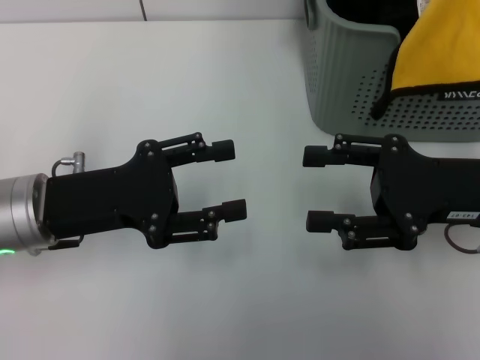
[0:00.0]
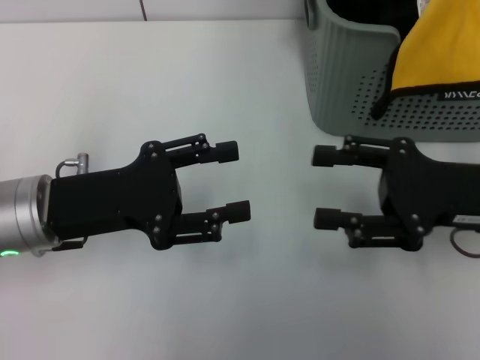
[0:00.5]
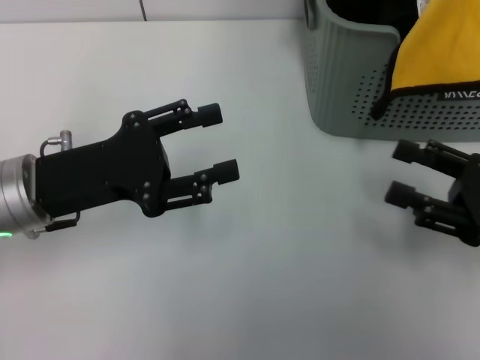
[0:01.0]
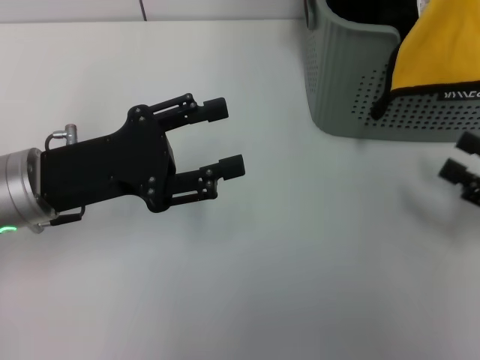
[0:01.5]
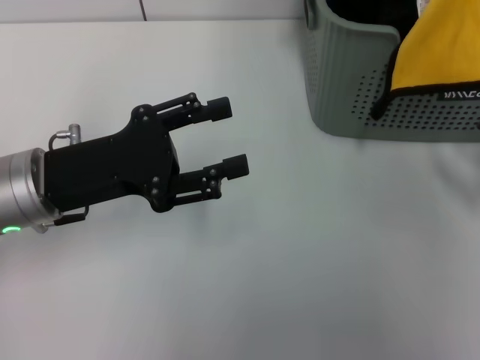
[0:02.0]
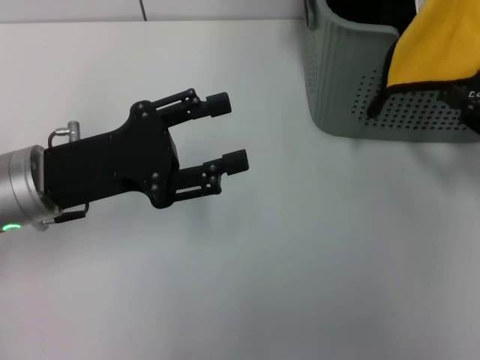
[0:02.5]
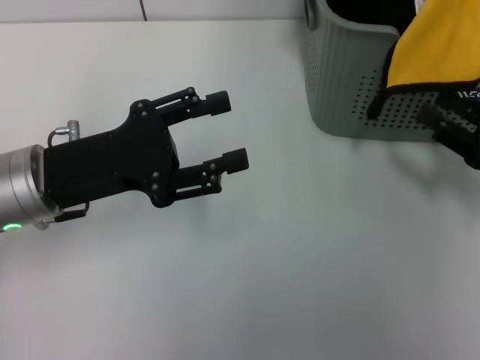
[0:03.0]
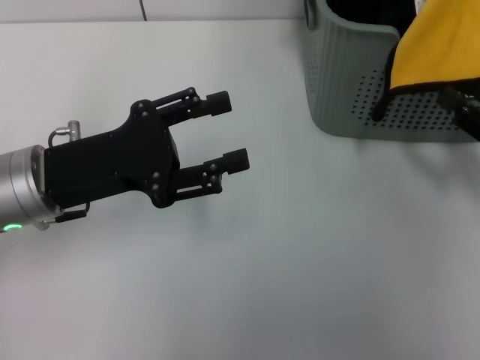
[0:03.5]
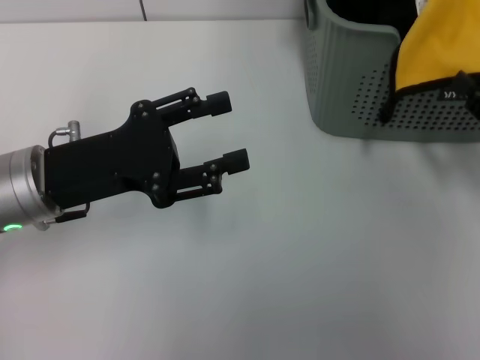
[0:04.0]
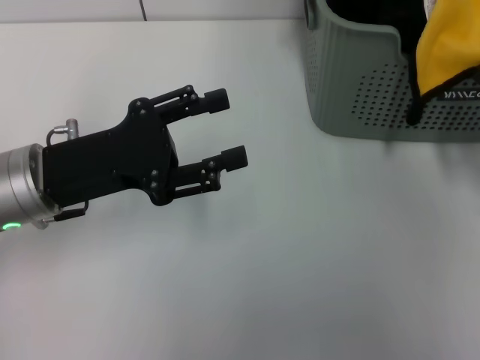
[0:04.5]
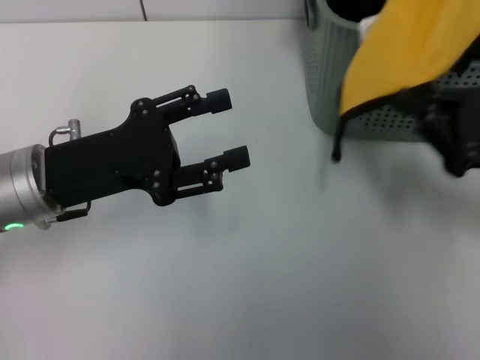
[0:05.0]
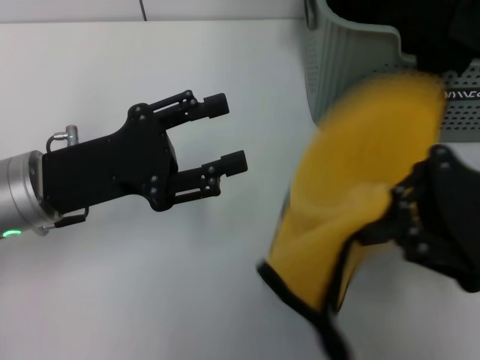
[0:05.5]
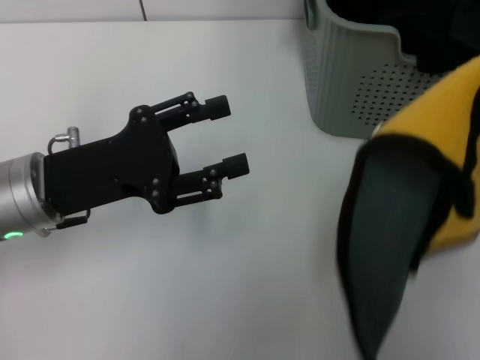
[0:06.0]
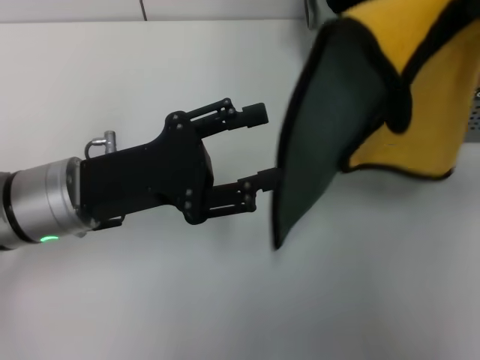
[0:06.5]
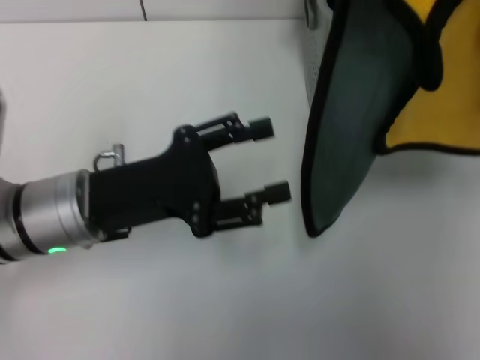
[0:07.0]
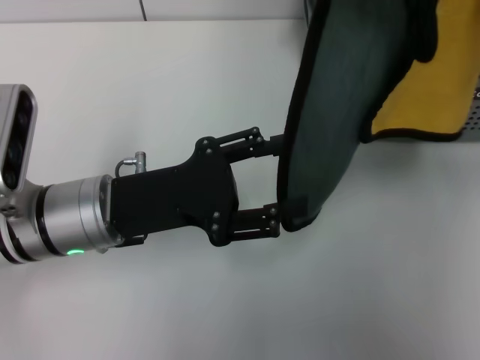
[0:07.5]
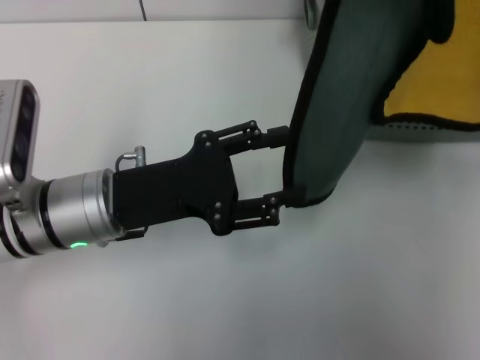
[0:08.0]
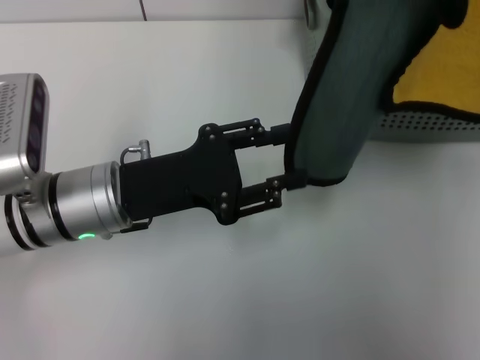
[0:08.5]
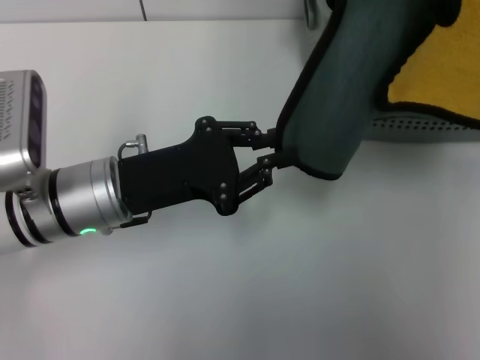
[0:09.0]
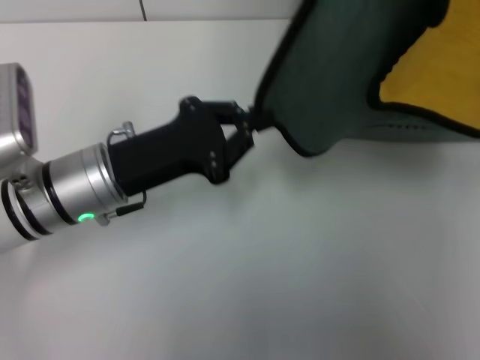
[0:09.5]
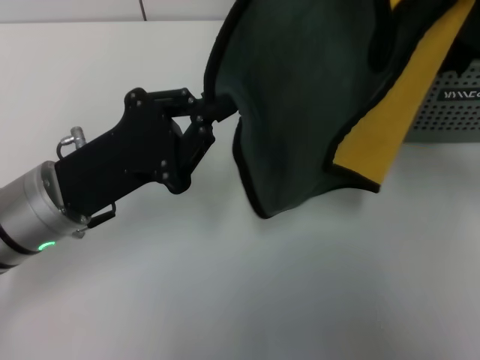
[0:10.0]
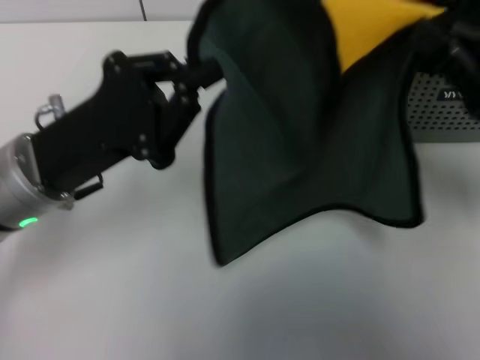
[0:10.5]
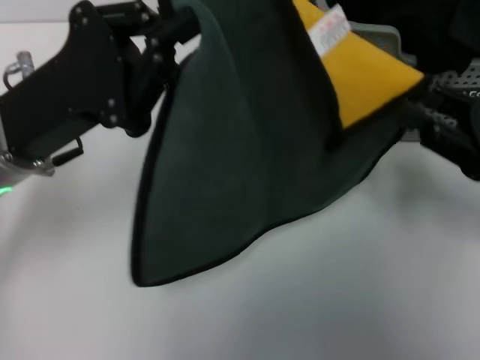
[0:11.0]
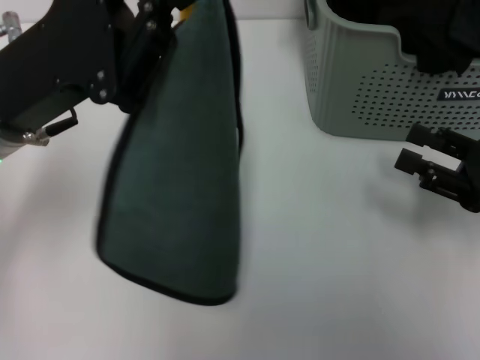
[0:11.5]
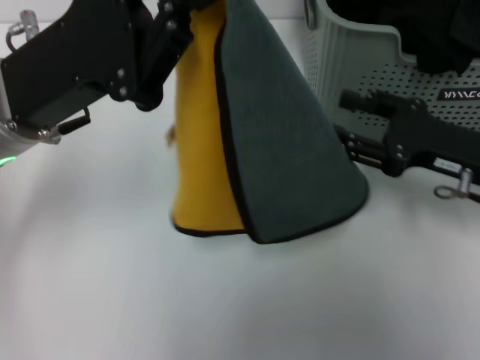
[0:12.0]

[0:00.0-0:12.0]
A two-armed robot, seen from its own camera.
Task of the whole recording: pick up the towel from the storage box and lay it flat on the table.
Step, 0:00.0 to 0:04.0: Pick up a towel with the right gripper.
Step, 0:04.5 to 0:09.0: Spread the towel flat with the right gripper.
0:00.0 to 0:02.0: The right gripper moves to the right and downward, approximately 15 cm.
0:02.0 to 0:04.0: There are only small adjustments of the grippers.
0:04.0 to 0:06.0: The right gripper is displaced upward by roughly 10 cm, and closes up.
0:06.0 to 0:08.0: The right gripper moves upward, some 5 cm.
0:08.0 to 0:10.0: The right gripper travels downward by approximately 5 cm, while the left gripper closes its fingers.
0:10.0 to 0:12.0: The right gripper heads downward, covering some 5 cm, and opens up. The left gripper is displaced upward by roughly 10 cm.

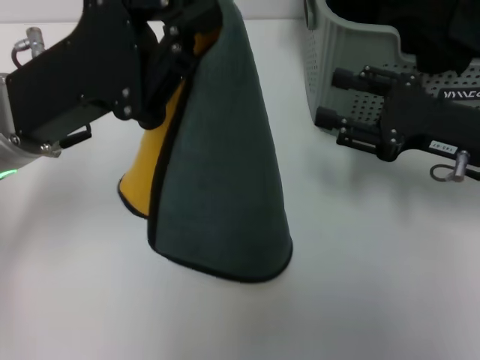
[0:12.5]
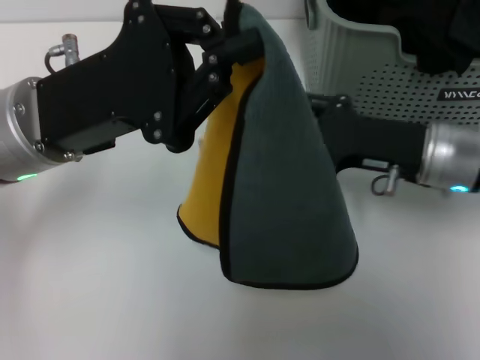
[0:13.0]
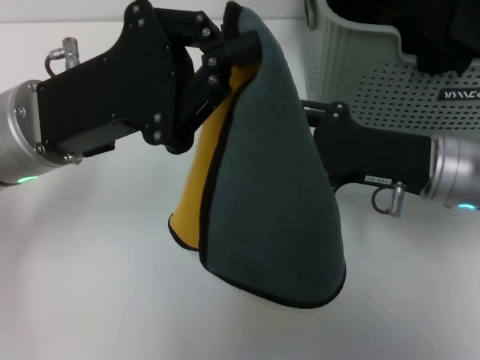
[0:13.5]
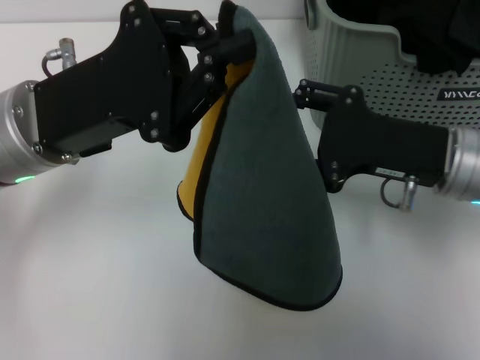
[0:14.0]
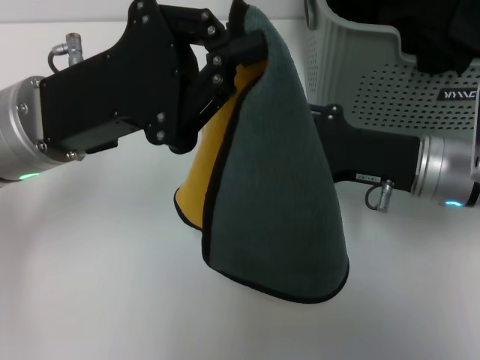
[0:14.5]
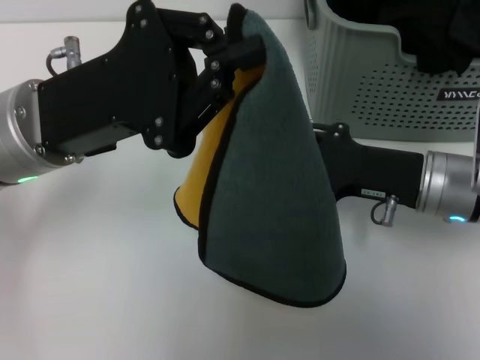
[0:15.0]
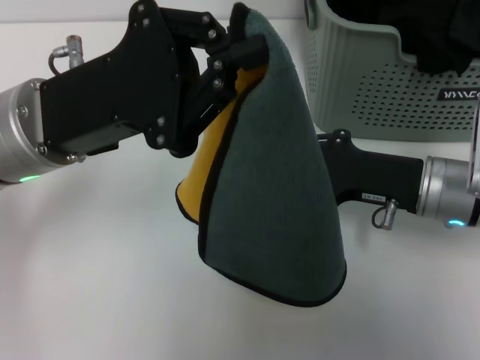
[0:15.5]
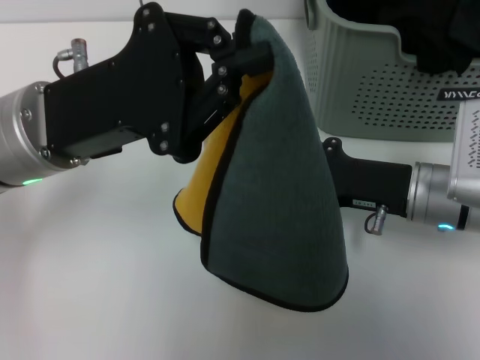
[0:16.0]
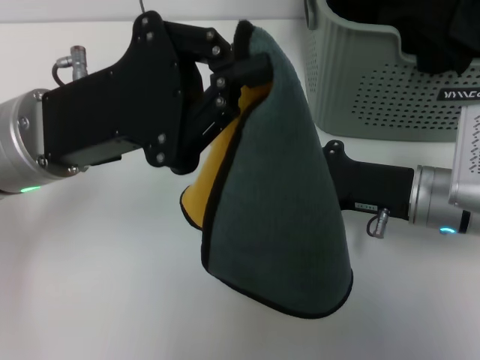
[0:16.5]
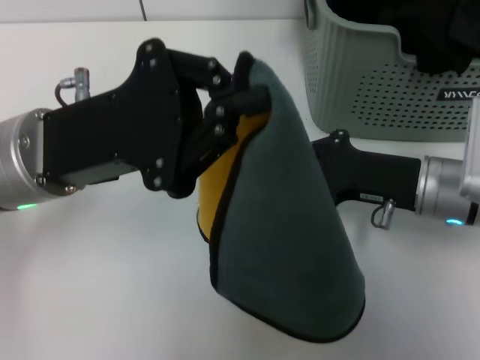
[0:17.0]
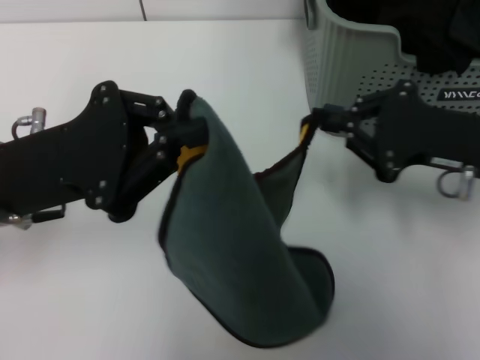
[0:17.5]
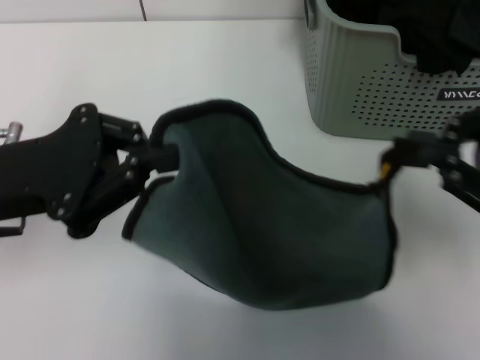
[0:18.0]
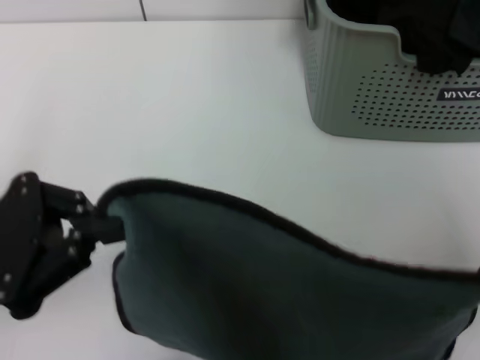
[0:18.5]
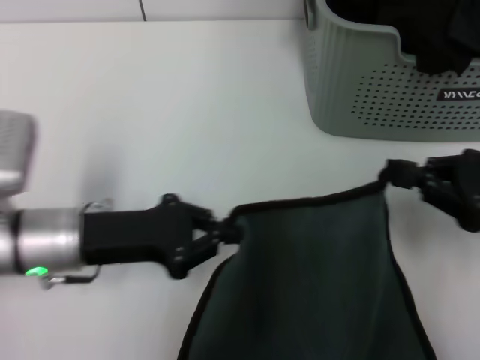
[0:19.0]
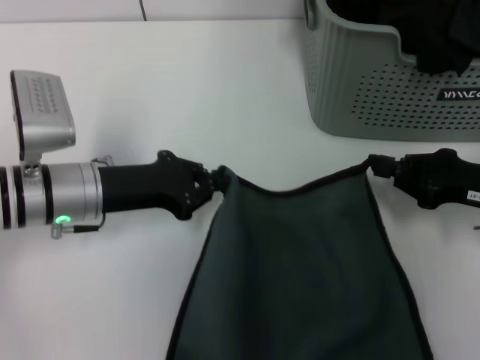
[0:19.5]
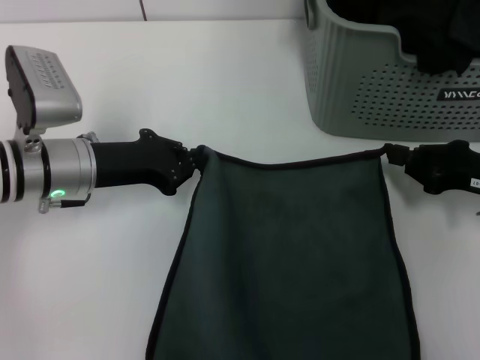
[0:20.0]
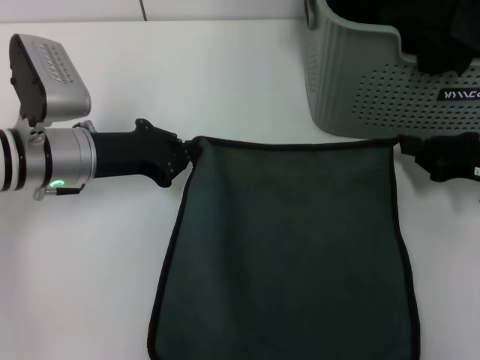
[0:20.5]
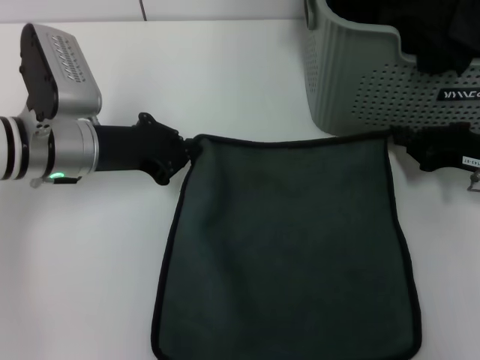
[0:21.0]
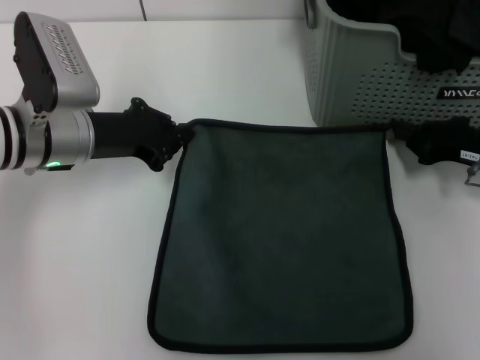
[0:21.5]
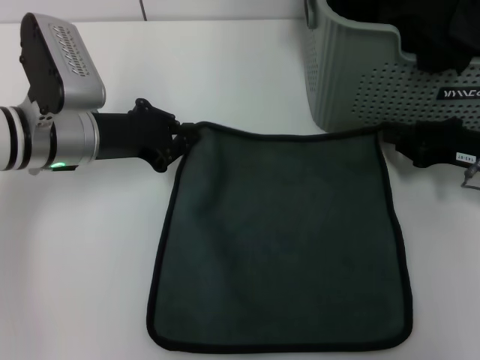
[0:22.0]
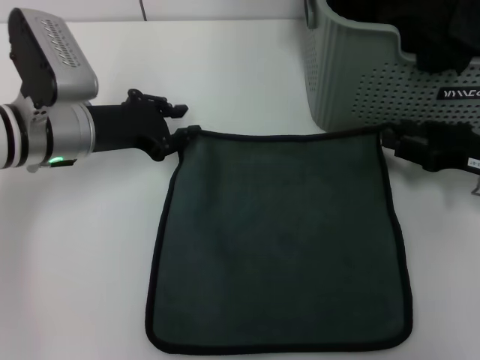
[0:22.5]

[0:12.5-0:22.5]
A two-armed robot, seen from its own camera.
Task of the whole recording: pick up the towel from the storage box and lay it flat on the table.
Step, 0:12.5 to 0:22.0: Spread the towel flat with the left gripper.
0:12.5 to 0:14.5: The right gripper heads to the left, covering about 5 cm.
0:14.5 to 0:16.5: The right gripper closes.
0:16.5 to 0:18.5: The left gripper heads to the left and backward, covering some 15 cm, while the right gripper goes approximately 20 cm to the right, upward and backward.
0:18.5 to 0:20.5: The left gripper travels forward, to the right and downward by some 15 cm. Meanwhile the right gripper heads forward and downward, covering roughly 20 cm.
0:20.5 to 0:22.5: The right gripper opens up.

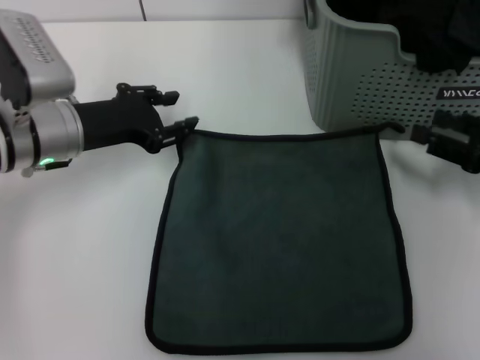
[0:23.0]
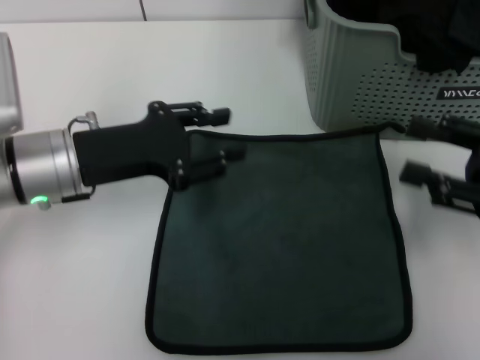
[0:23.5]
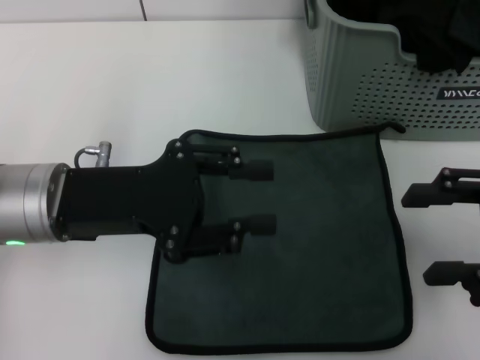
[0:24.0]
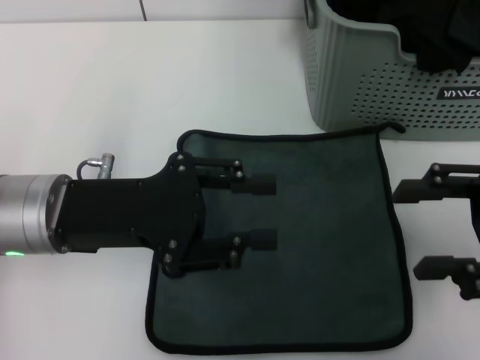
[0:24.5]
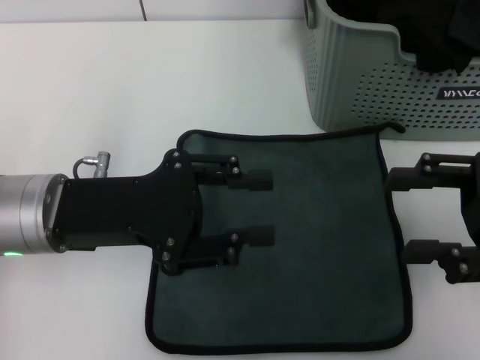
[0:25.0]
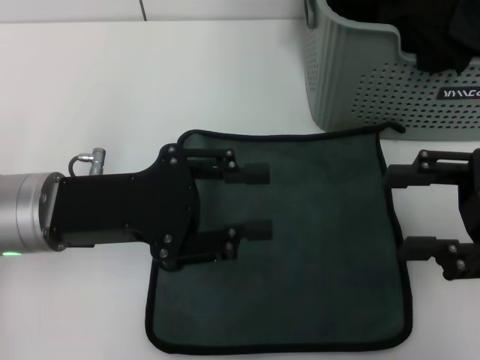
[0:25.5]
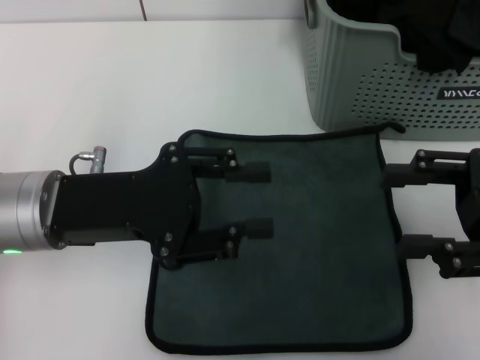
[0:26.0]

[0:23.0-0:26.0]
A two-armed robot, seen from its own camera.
Task of the whole recording: pick up the towel from the storage box and lay it flat on the table.
0:23.0 to 0:24.5: The left gripper is displaced backward by approximately 10 cm; the right gripper moves upward, roughly 5 cm.
0:24.5 to 0:26.0: Both grippers stay about where they are.
